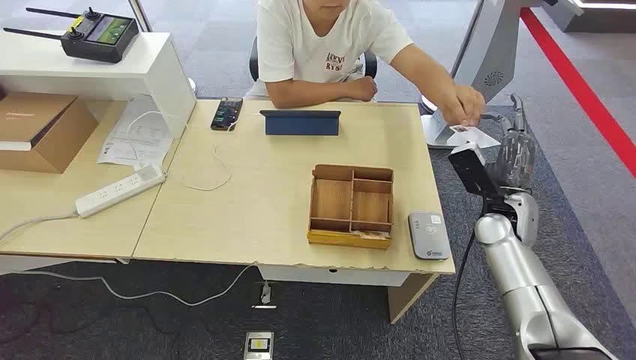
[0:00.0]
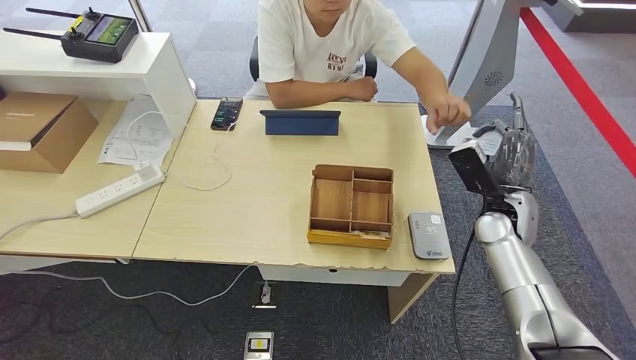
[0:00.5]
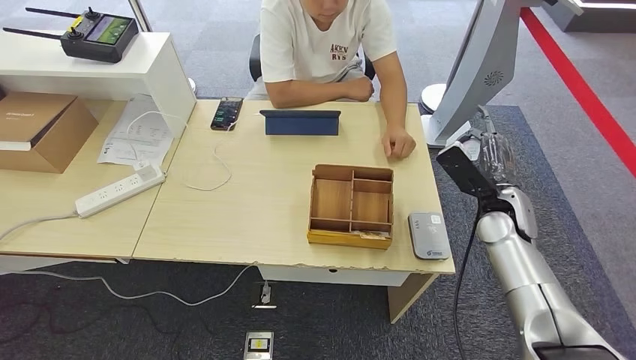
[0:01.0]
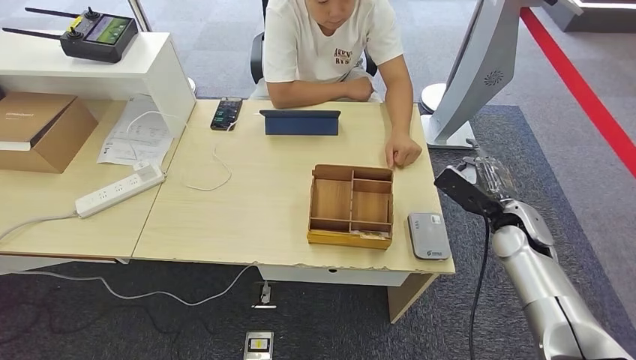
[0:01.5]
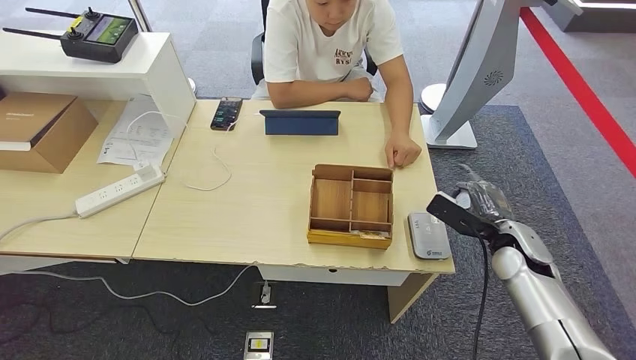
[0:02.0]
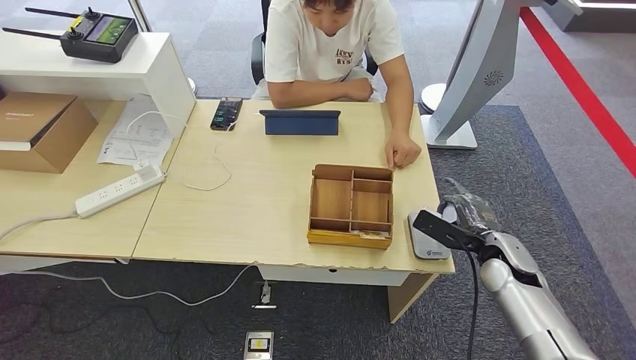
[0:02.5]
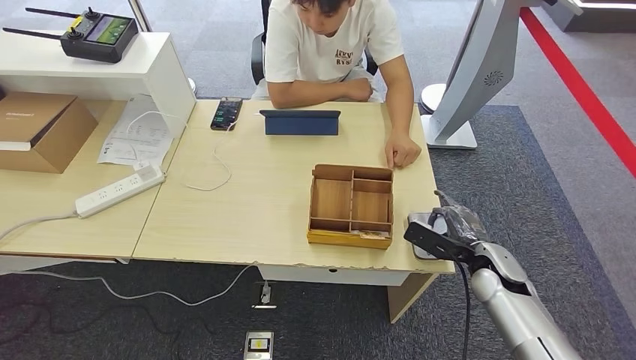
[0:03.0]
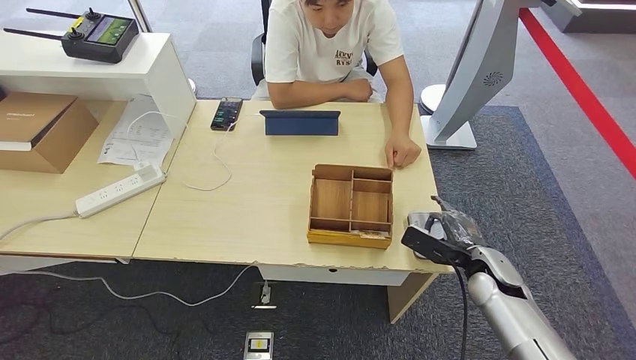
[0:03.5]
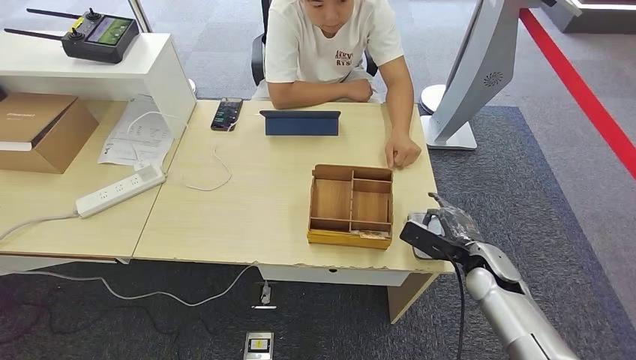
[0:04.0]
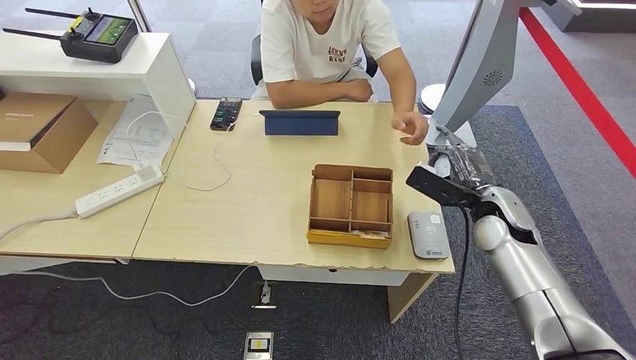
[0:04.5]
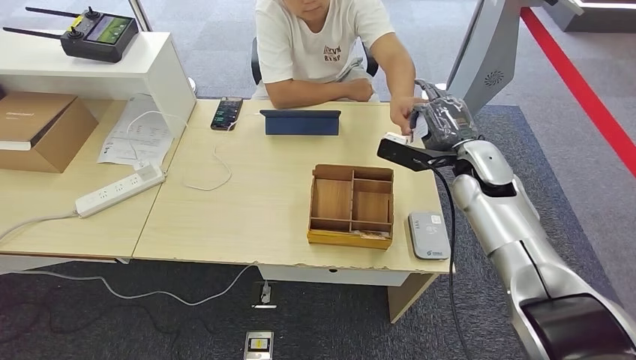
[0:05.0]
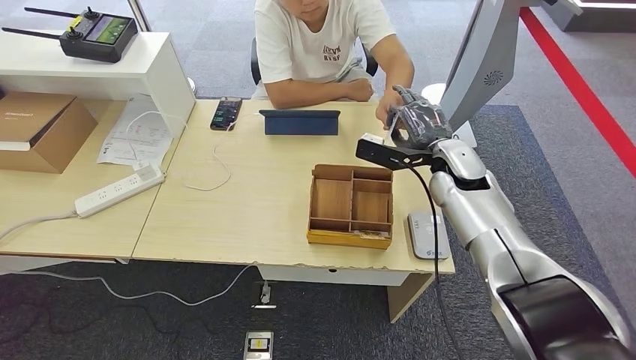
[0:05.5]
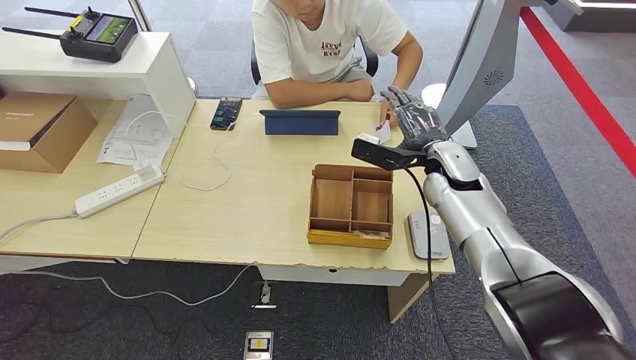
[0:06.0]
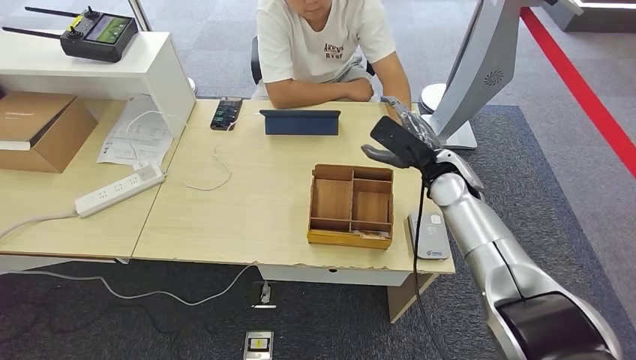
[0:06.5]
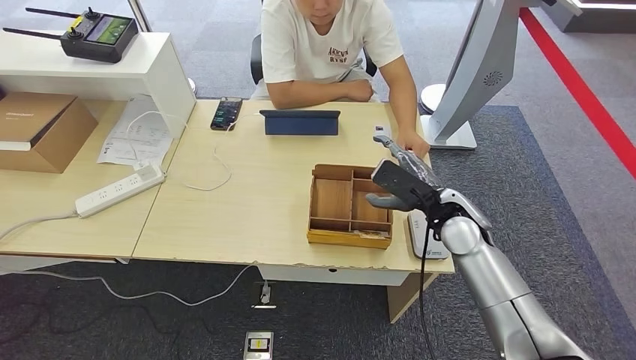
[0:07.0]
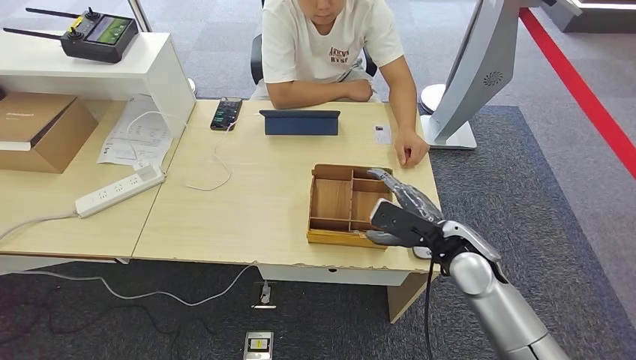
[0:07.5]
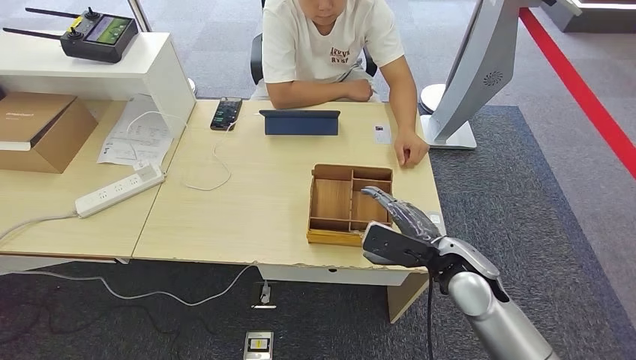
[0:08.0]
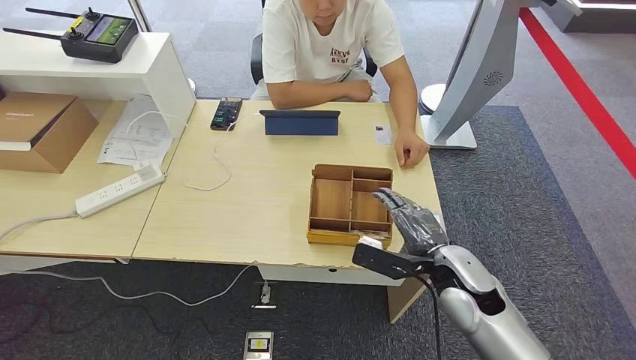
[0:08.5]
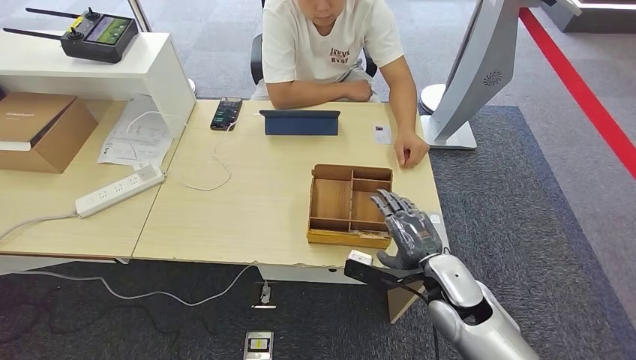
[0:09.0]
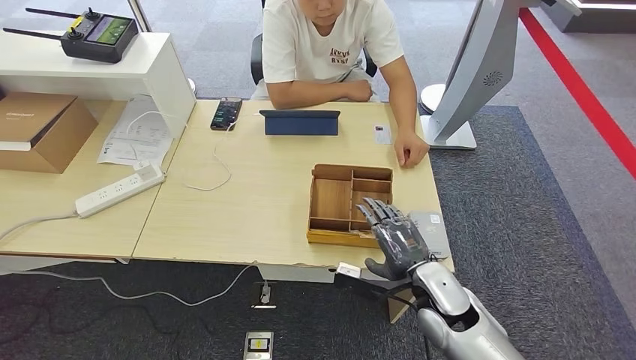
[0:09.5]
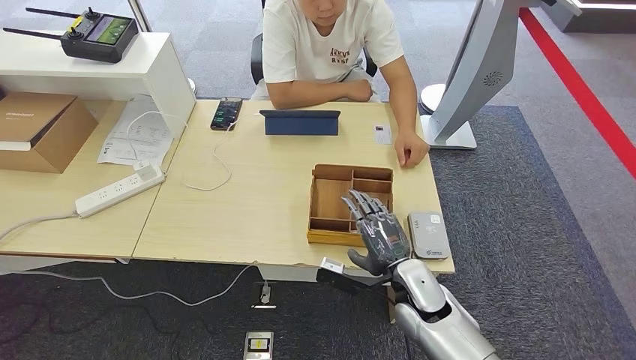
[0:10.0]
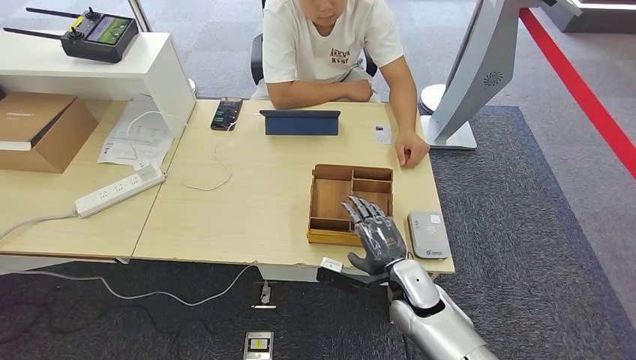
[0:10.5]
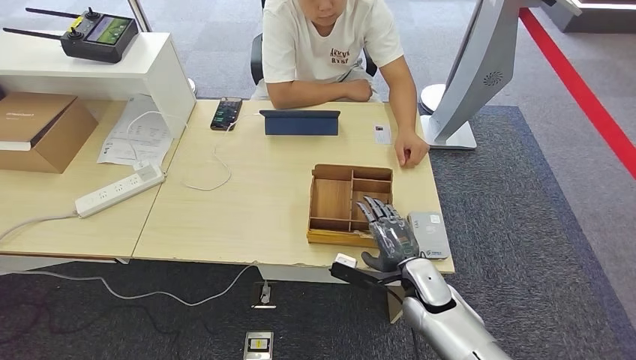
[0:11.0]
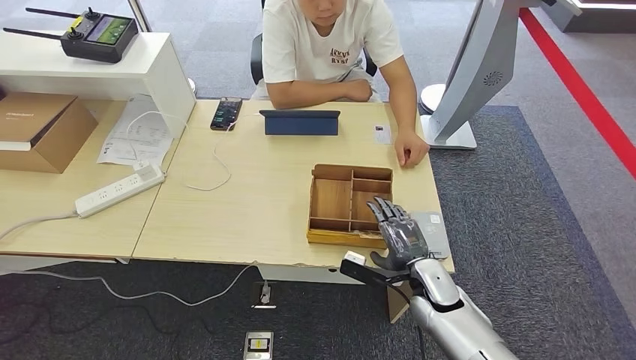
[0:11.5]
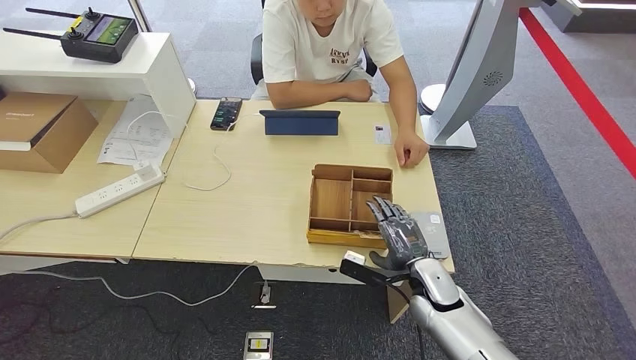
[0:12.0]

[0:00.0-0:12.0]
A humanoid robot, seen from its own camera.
Step, 0:00.0 to 0:00.5: Take the ID card from the person's hand.
Step, 0:01.0 to 0:04.0: Place the ID card on the card reader.
Step, 0:04.5 to 0:06.5: Hand the ID card to the person.
0:02.0 to 0:04.0: The right hand shifts by some 5 cm.
0:04.0 to 0:06.0: The right hand shifts some 20 cm upward, forward and to the left.
0:06.0 to 0:08.0: The right hand travels backward and downward by some 15 cm.
0:08.0 to 0:10.0: The right hand travels downward and to the left by some 10 cm.
0:10.0 to 0:12.0: The right hand goes about 5 cm to the right.

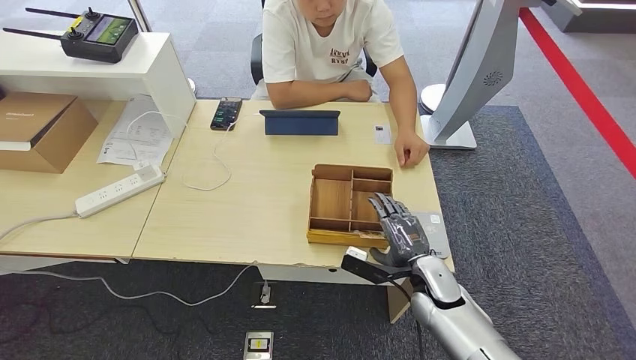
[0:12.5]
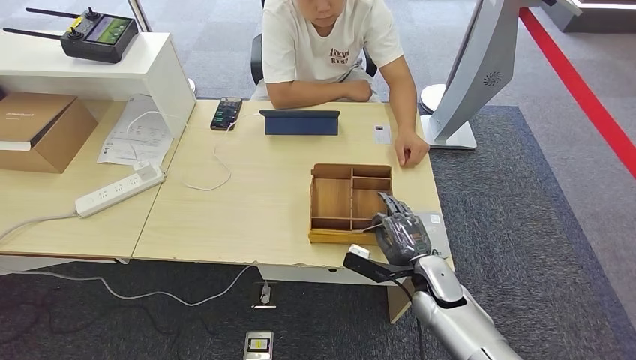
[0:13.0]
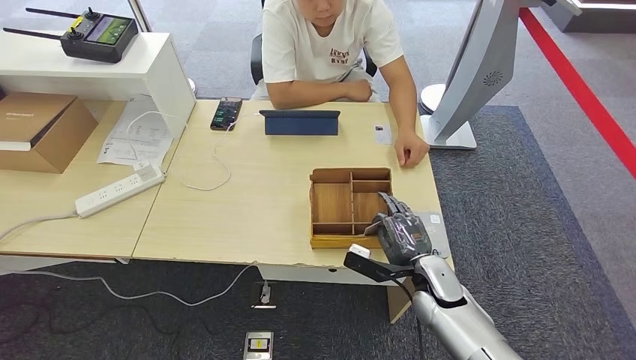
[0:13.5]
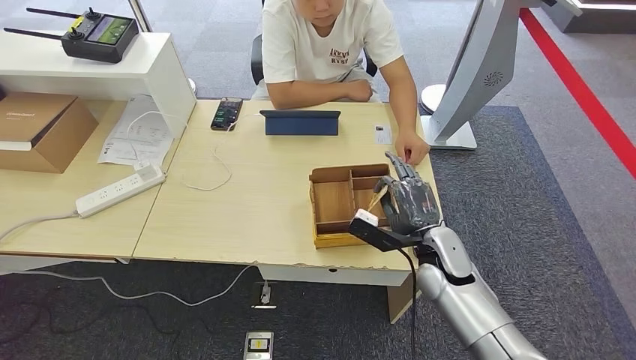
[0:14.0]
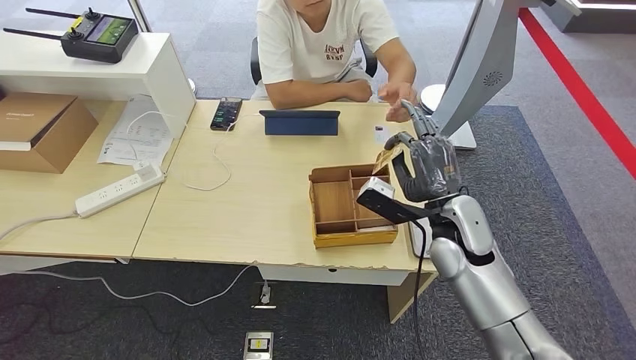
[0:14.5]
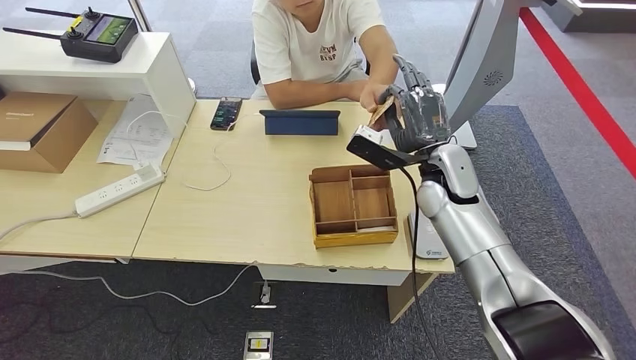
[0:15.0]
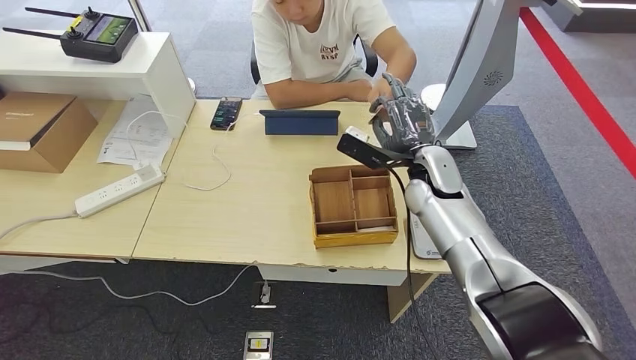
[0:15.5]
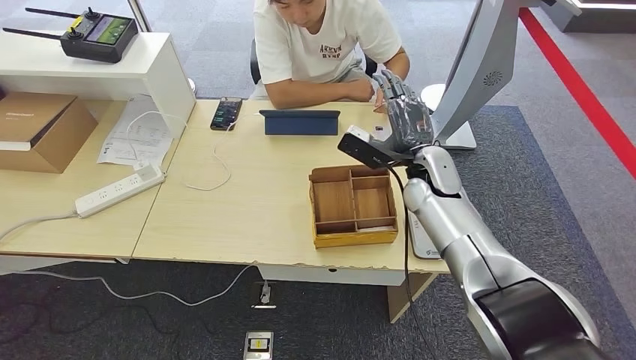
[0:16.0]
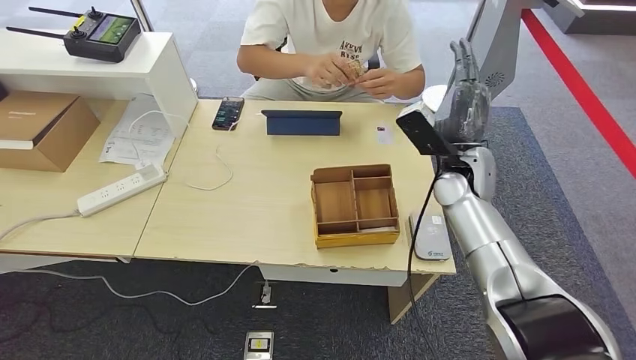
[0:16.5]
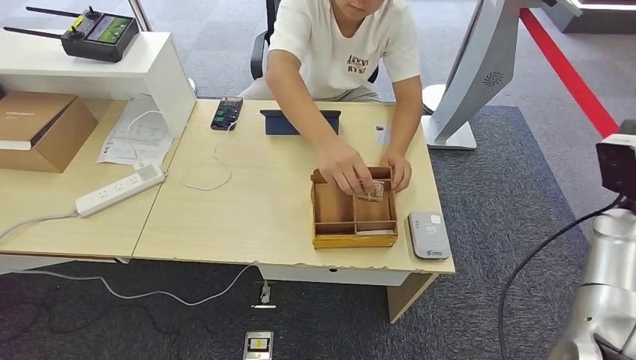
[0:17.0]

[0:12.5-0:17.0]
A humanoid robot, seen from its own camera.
Step, 0:12.5 to 0:14.0: Pick up the room key from the key card box.
Step, 0:14.5 to 0:17.0: Hand the room key to the person.
0:12.5 to 0:14.5: The right hand heads upward, covering roughly 15 cm.
0:14.5 to 0:17.0: The right hand is displaced to the right by some 25 cm.
